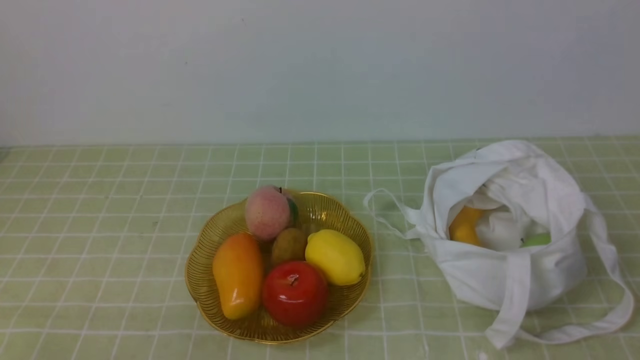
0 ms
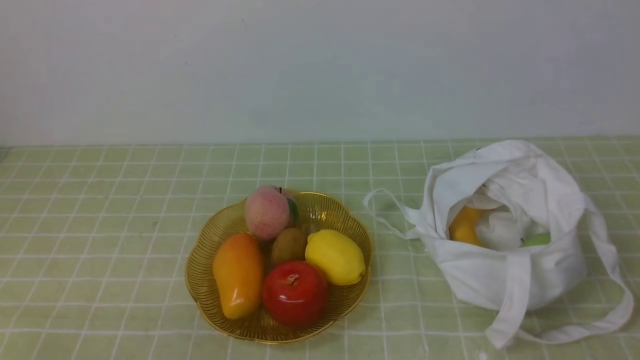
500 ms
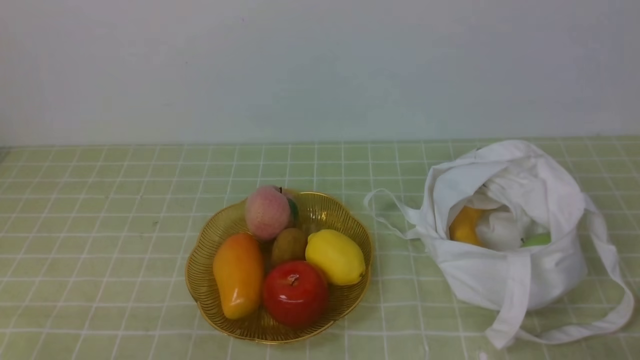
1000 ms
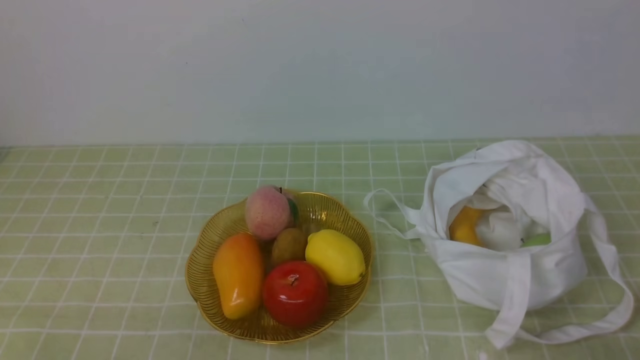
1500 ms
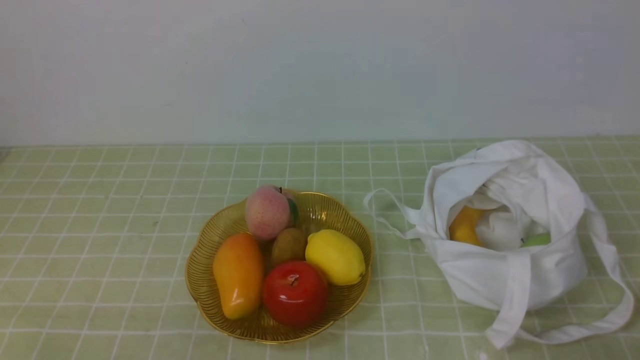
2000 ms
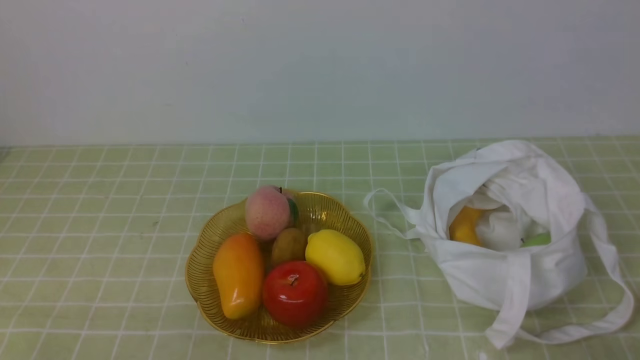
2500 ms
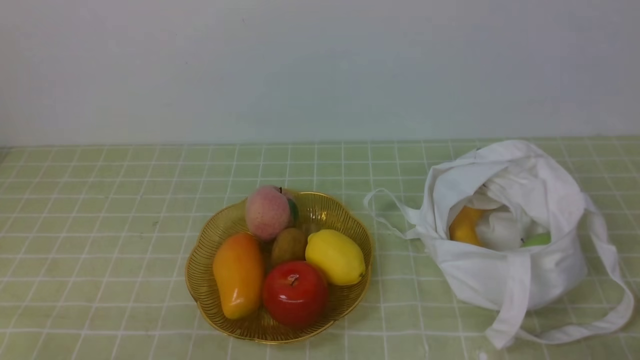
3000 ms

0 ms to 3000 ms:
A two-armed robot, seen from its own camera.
1500 ms to 3000 ms: Neither gripper changes place.
